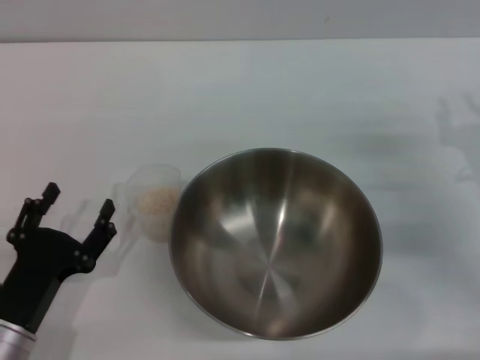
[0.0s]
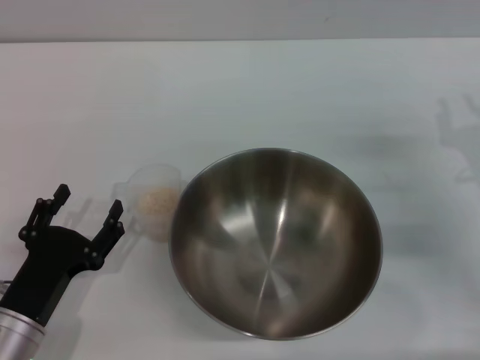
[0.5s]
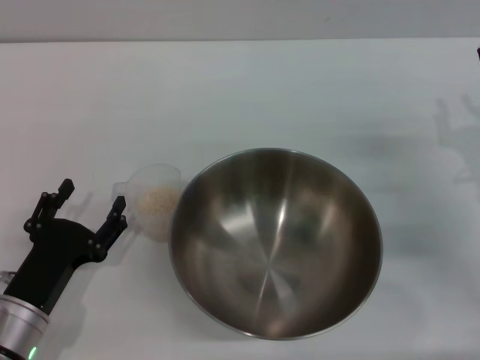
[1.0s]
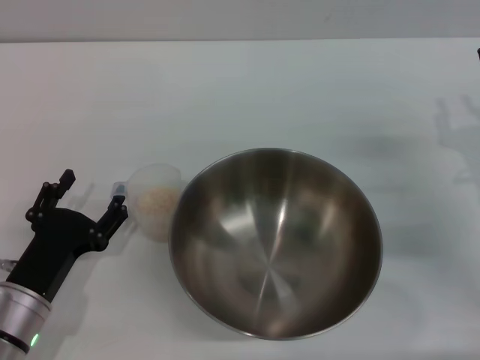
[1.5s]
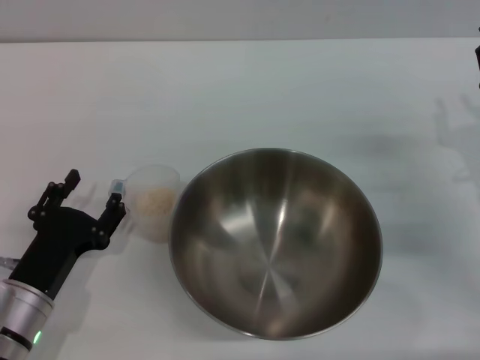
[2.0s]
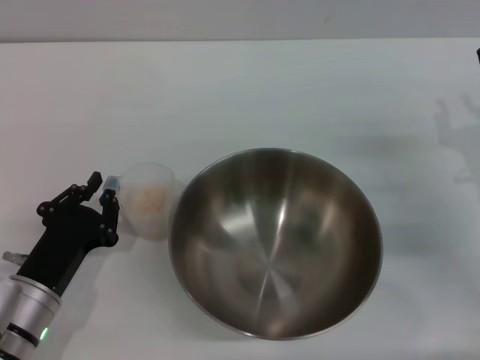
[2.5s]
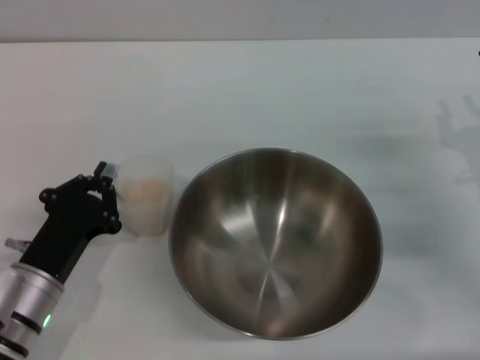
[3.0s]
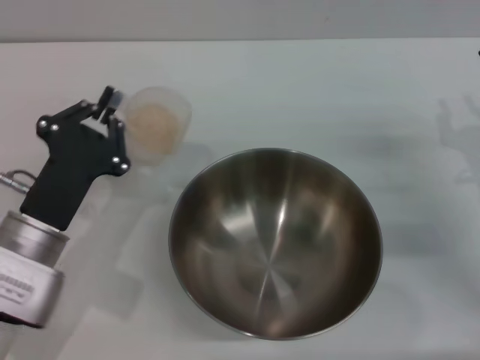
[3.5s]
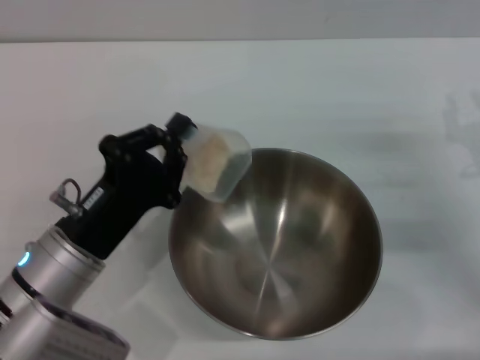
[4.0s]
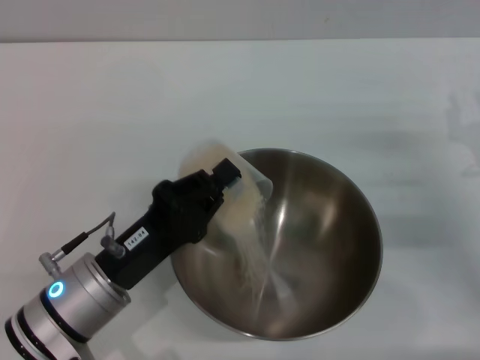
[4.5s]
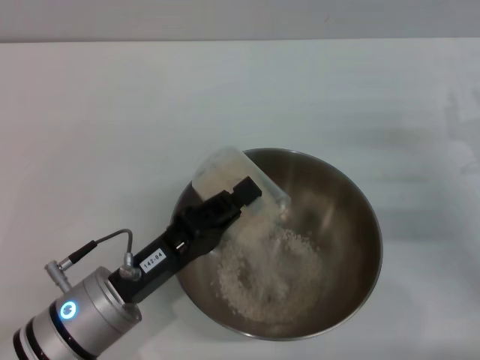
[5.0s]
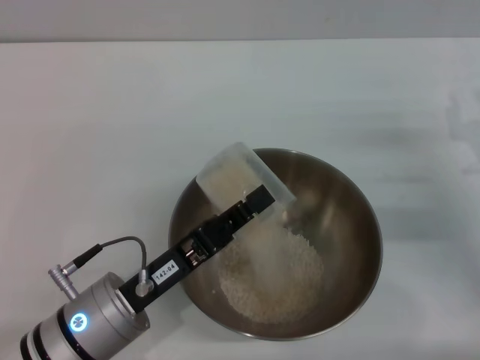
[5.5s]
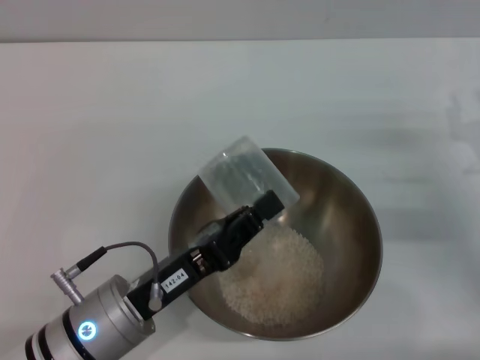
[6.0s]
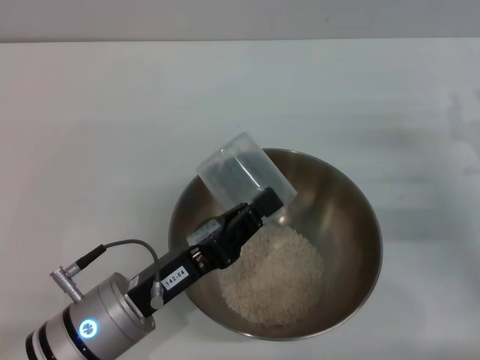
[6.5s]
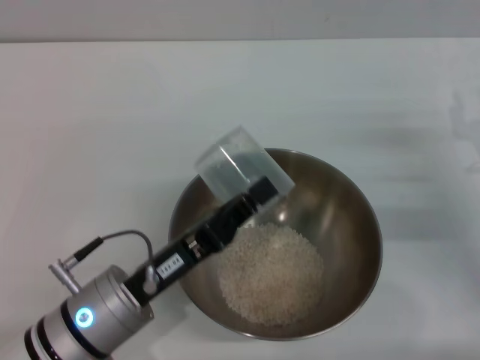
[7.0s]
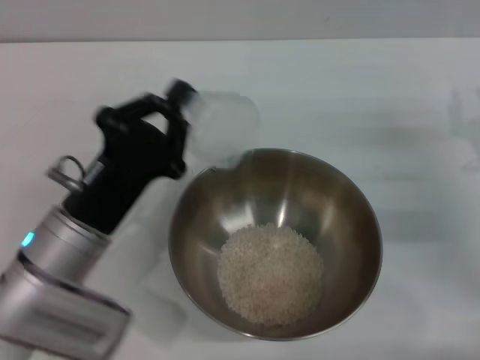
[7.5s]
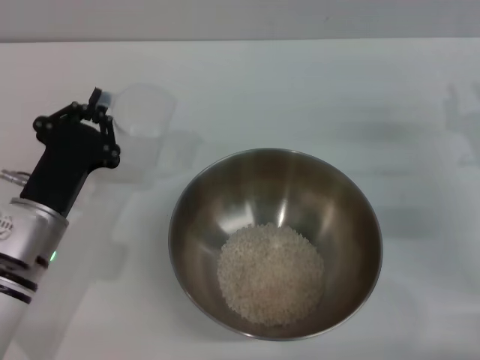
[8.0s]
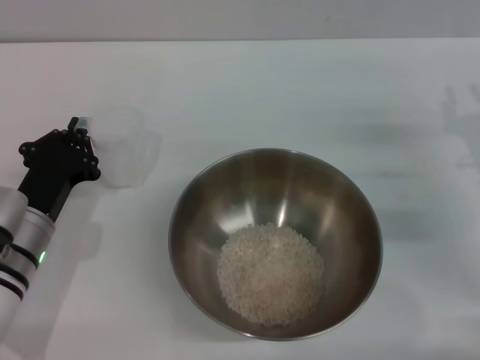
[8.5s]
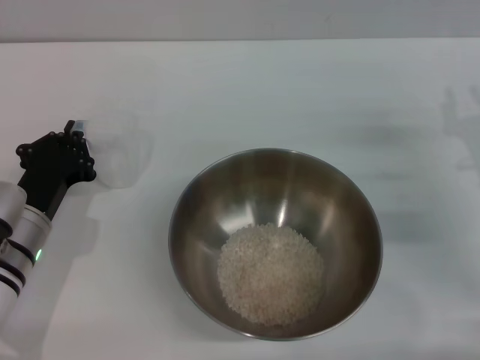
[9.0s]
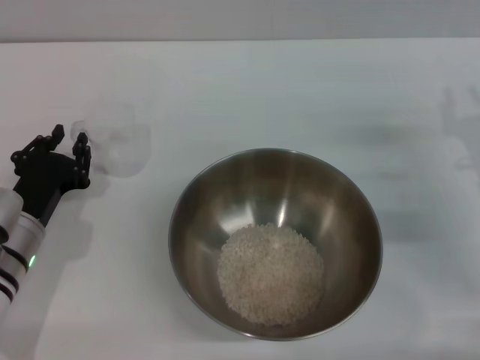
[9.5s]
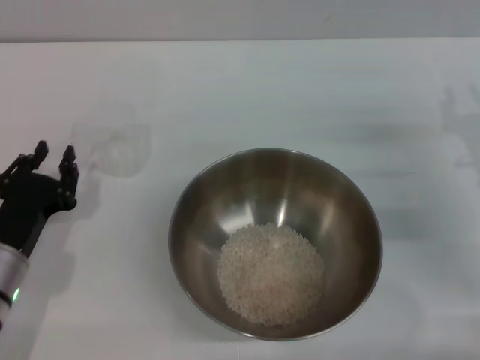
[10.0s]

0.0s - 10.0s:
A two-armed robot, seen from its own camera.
Task of the whole recording: Place the bowl in the middle of the table with one hand and pour the rice from the grain cup into it with the other hand.
Step, 0.0s - 3.5s: Pick up the cup with rice in it with the left gripper.
Step, 4.0s - 6.0s: Pour the rice from the cup into the bowl with the left gripper.
Step, 6.5s - 9.5s: Place the cup on the table with the left gripper.
0.0s - 2.0s: The grippers move only a little.
2.0s - 4.0s: The left gripper shifts approximately 5 cm upward, and closes its fingers.
4.0s - 6.0s: The left gripper ends up about 5 cm from where it was.
6.0s - 8.0s: The left gripper heads forward and to the left, covering about 10 cm.
8.0s - 10.0s: The left gripper moves about 5 cm.

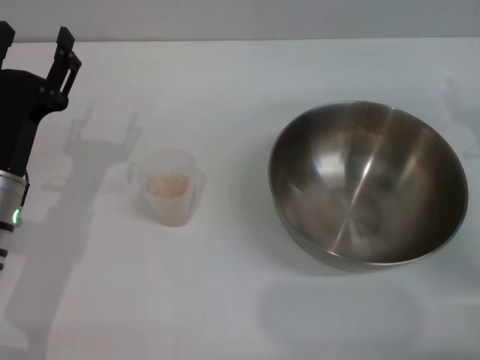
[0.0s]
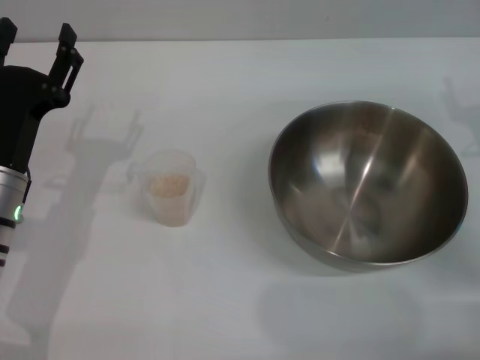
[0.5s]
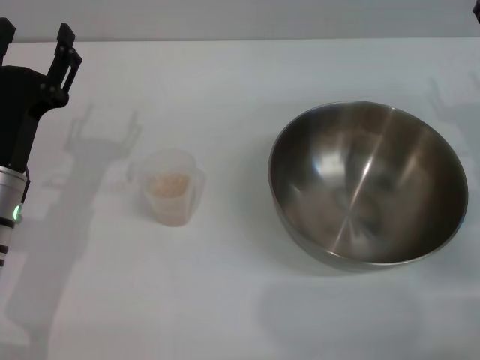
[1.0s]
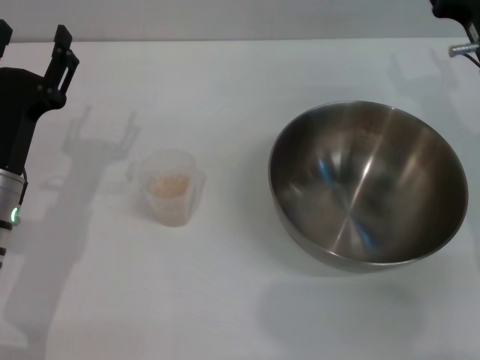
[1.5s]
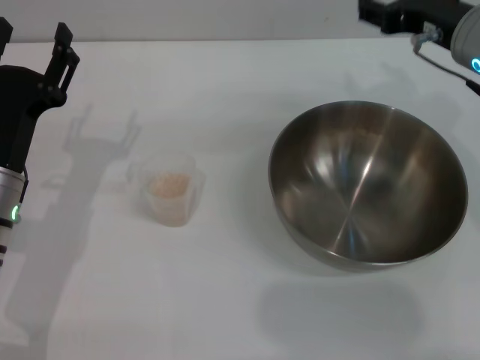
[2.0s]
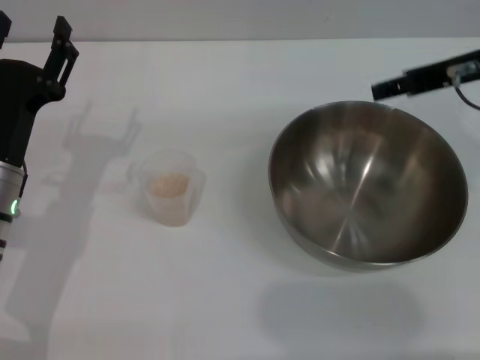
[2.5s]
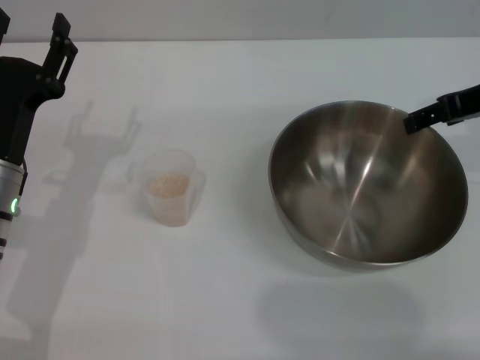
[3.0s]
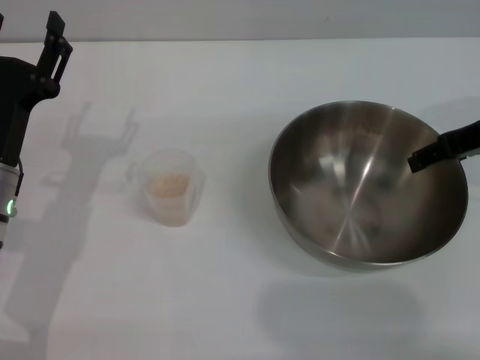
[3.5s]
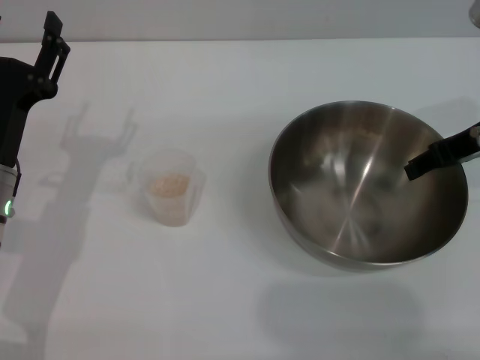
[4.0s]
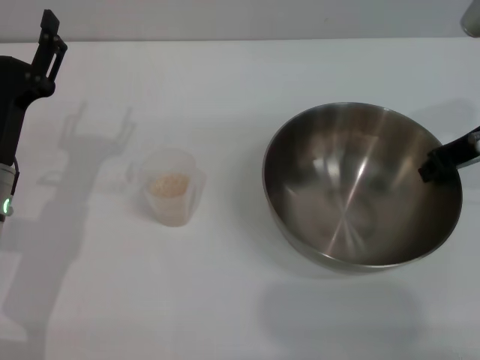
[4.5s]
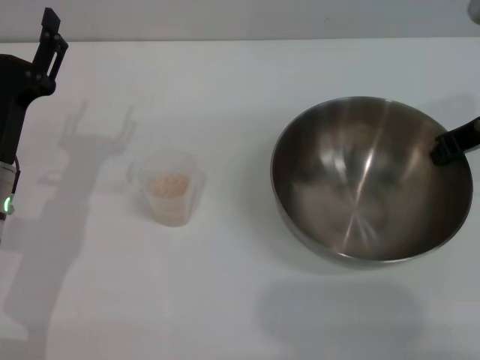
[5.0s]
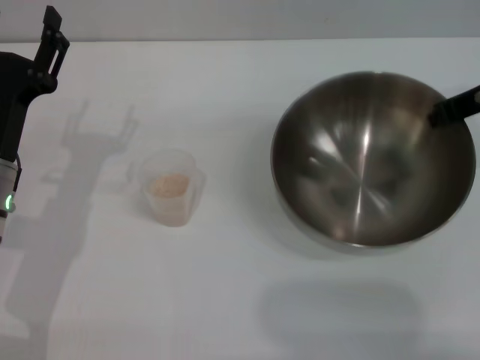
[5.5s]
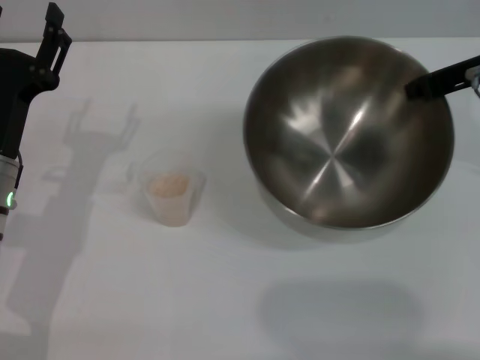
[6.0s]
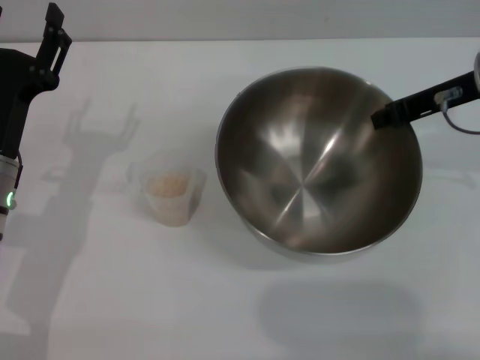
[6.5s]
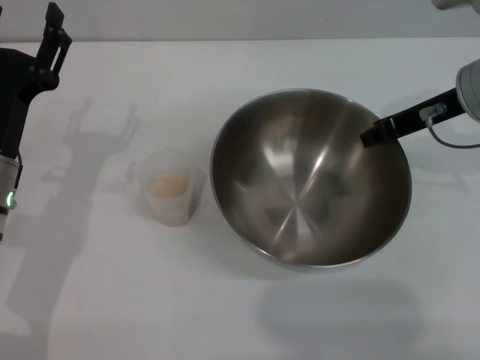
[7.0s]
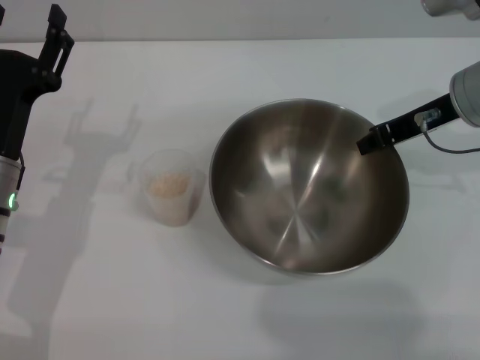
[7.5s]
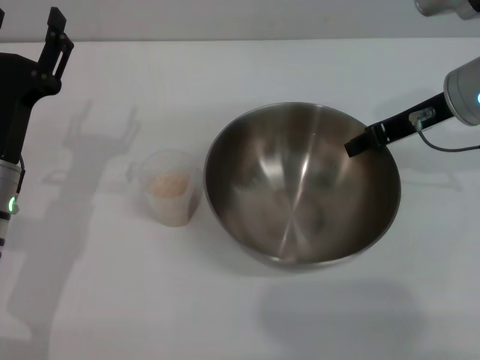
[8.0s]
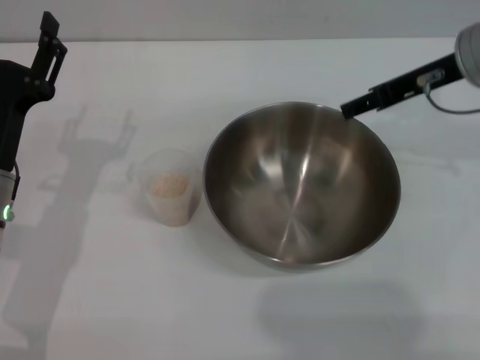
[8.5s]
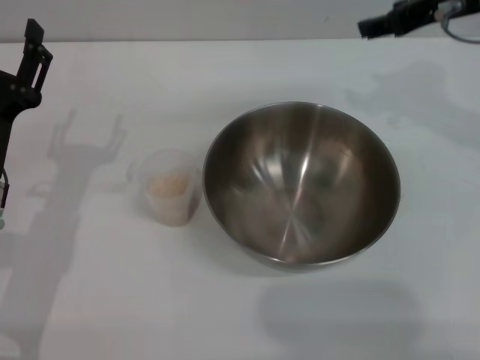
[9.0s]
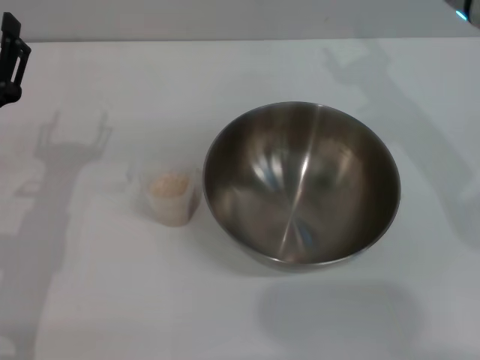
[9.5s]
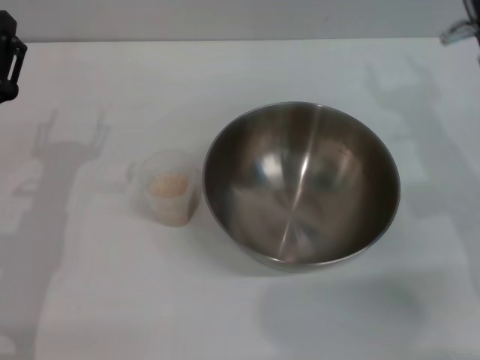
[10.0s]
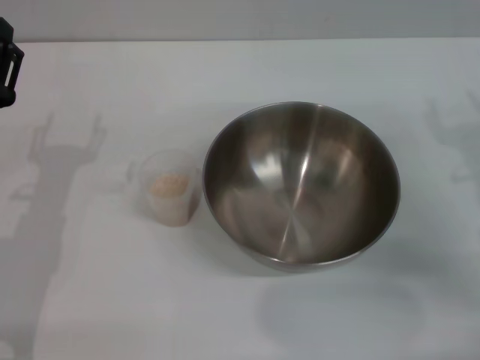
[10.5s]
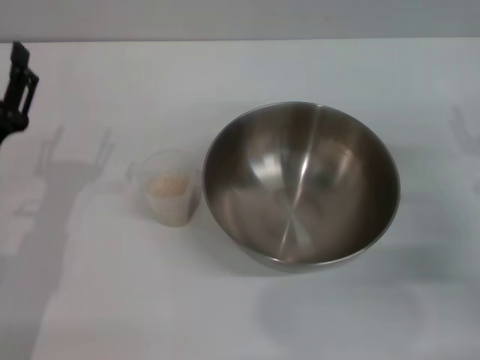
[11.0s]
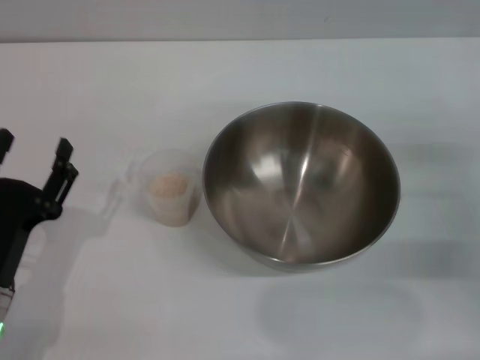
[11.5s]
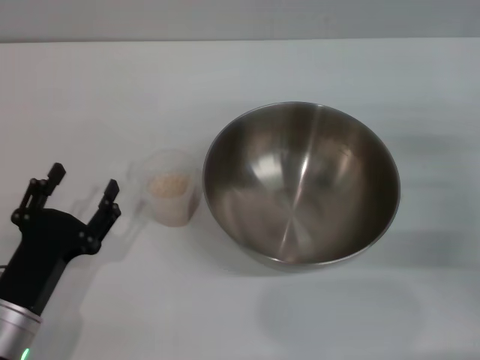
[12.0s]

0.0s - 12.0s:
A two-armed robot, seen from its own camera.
Task of the whole recording: Place the bowl in the middle of the table with one hand and pour the rice from the grain cup into it with the other hand.
Step, 0.0s - 5.5s: Pick up the bowl with the right gripper.
Step, 6.0s - 8.5s: Place the bowl in the center of view with the right gripper.
0.0s - 2.0s: The right gripper shifts roughly 15 cm upward, to the left and forward.
2.0s - 4.0s: The right gripper travels to the right by approximately 5 cm.
4.0s - 6.0s: The right gripper closes.
6.0s - 8.0s: The right gripper heads downward, covering some 5 cm.
8.0s - 10.0s: The right gripper heads backward, covering about 5 cm, travels upward and back again, approximately 10 cm each way, and opens up.
10.0s - 12.0s: The right gripper goes some 10 cm to the right and downward; the left gripper heads backward and downward, covering about 10 cm.

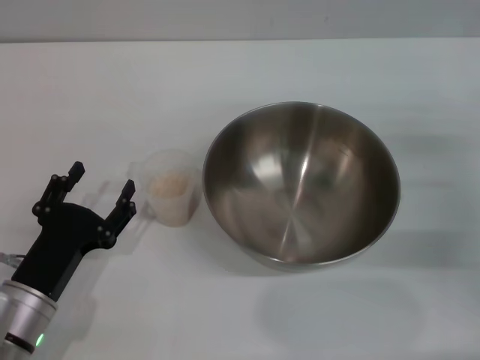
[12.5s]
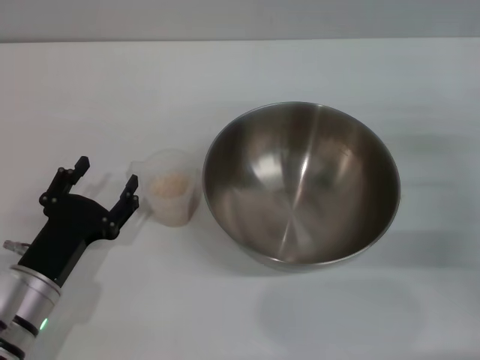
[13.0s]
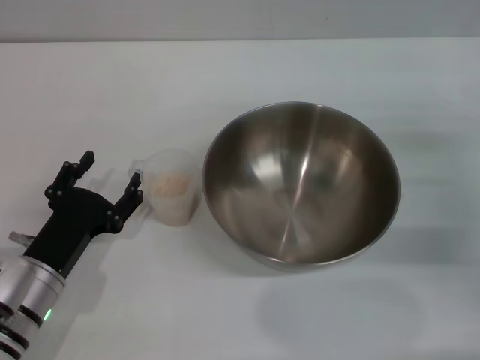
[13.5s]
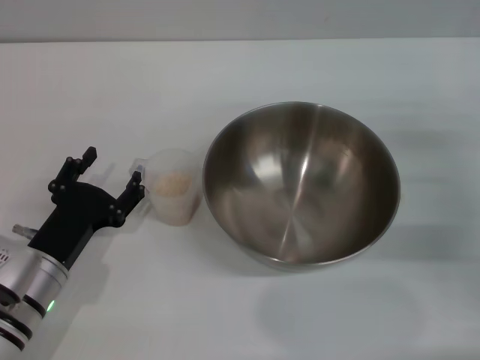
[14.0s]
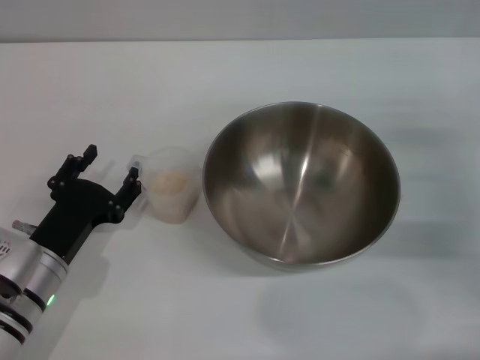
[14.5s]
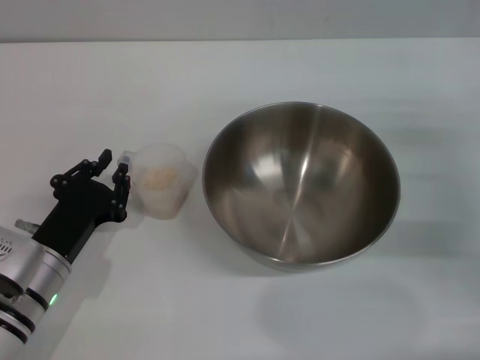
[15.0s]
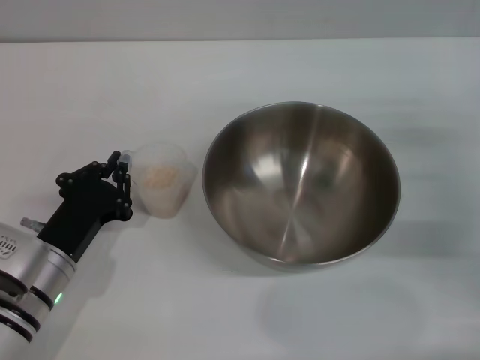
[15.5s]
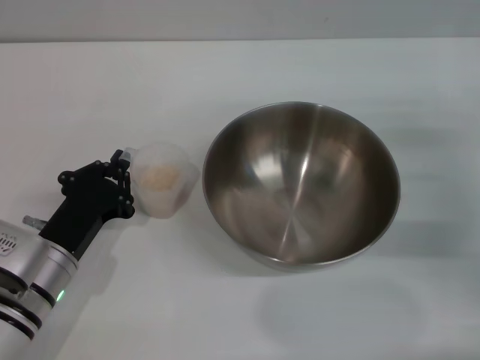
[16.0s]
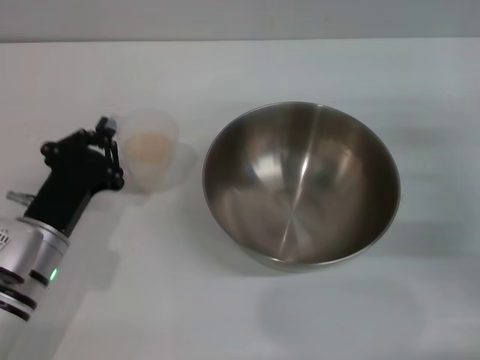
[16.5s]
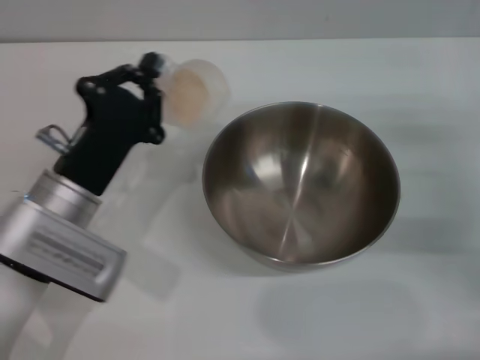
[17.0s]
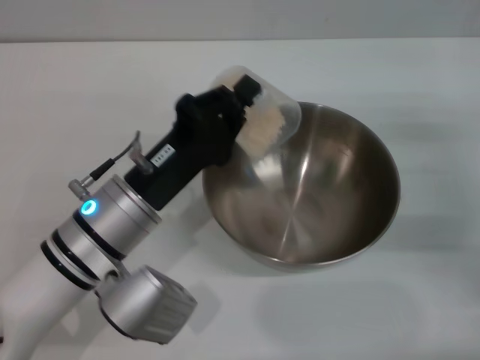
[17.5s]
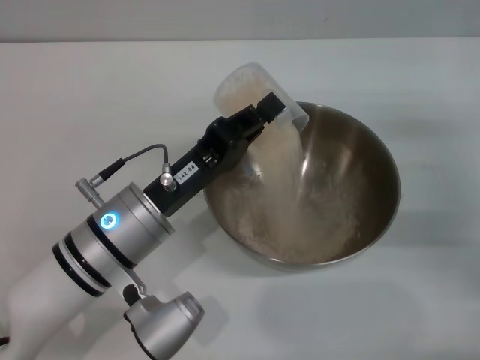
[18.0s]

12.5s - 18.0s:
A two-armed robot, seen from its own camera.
Task of the whole recording: Place the bowl in the middle of the table with one hand and pour the rice from the grain cup into it with the other hand.
Step, 12.5s - 16.5s: Pick up the cup with rice in it with the left gripper.
12.5s - 14.5s: The grippers make only small movements.
14.5s - 16.0s: The left gripper closes.
16.0s - 18.0s: The left gripper moves to the right and upward, roughly 10 cm.
